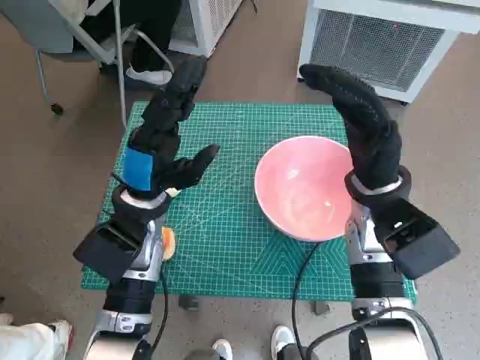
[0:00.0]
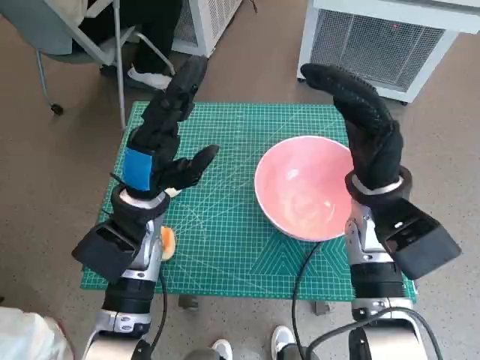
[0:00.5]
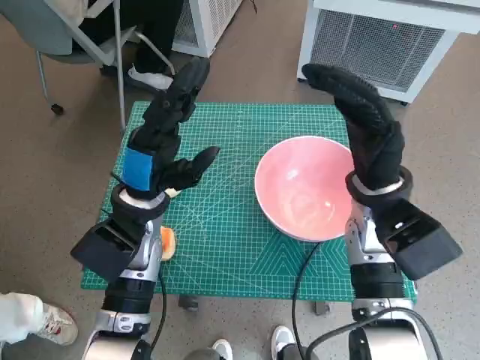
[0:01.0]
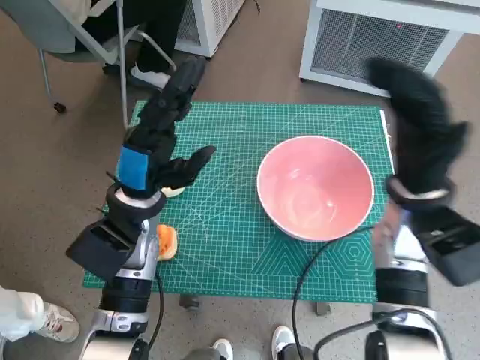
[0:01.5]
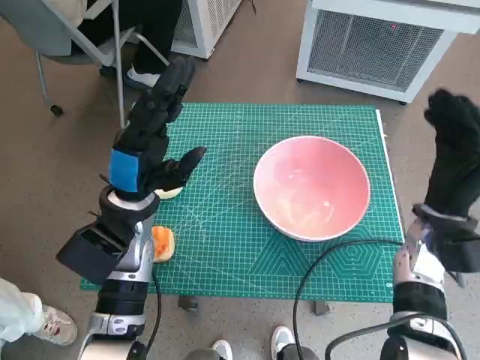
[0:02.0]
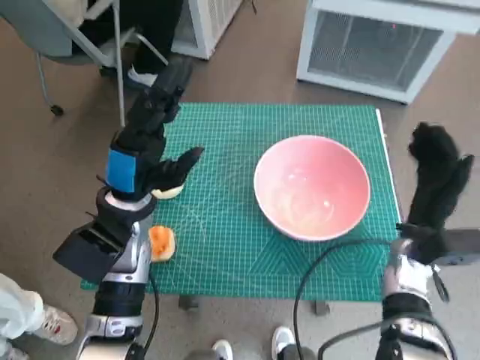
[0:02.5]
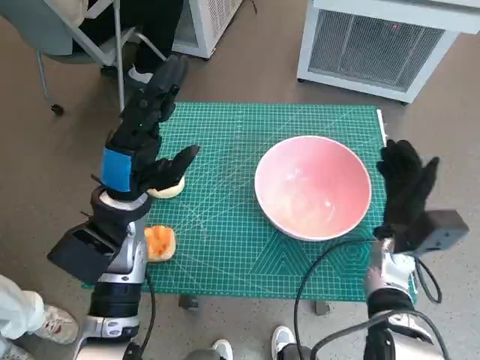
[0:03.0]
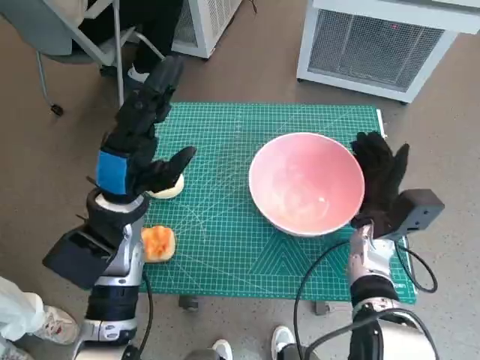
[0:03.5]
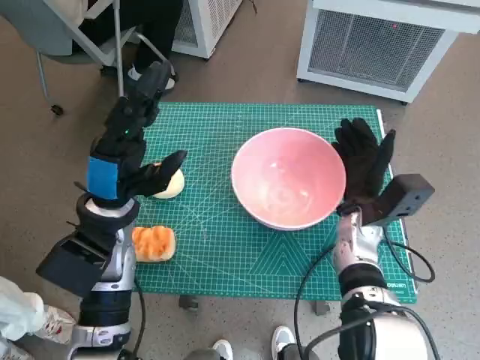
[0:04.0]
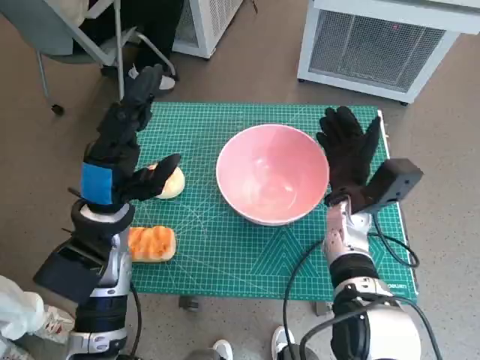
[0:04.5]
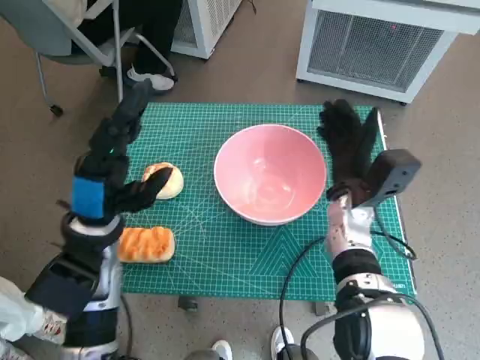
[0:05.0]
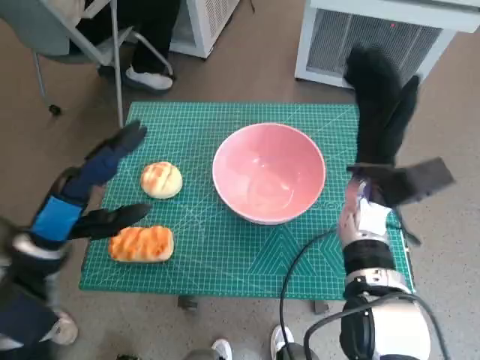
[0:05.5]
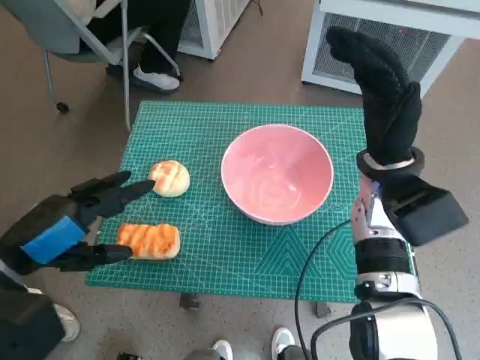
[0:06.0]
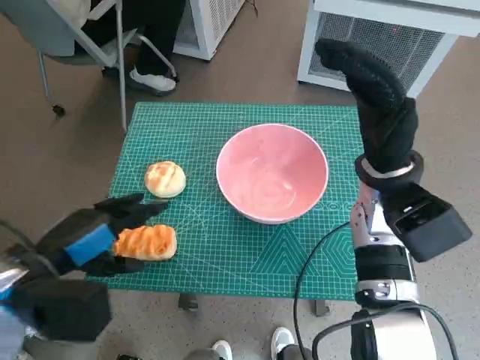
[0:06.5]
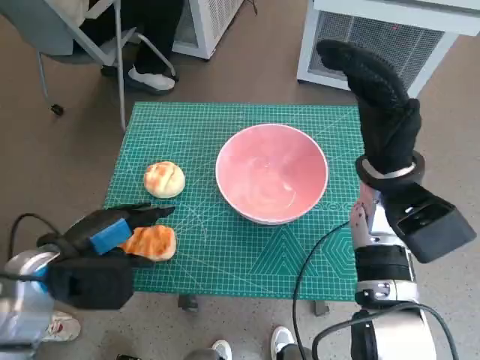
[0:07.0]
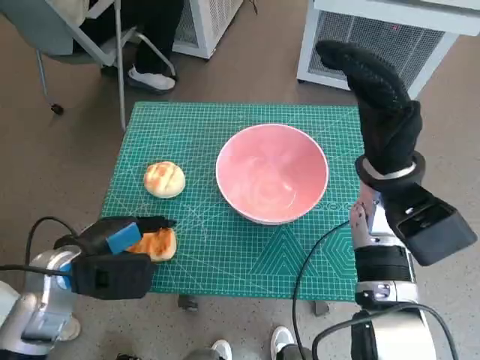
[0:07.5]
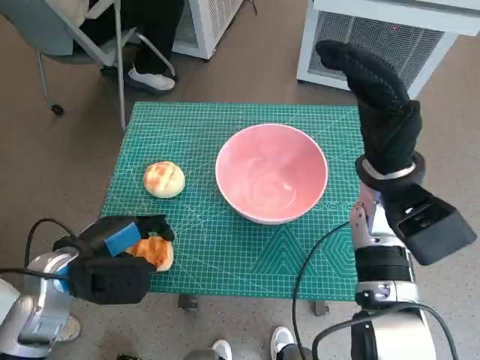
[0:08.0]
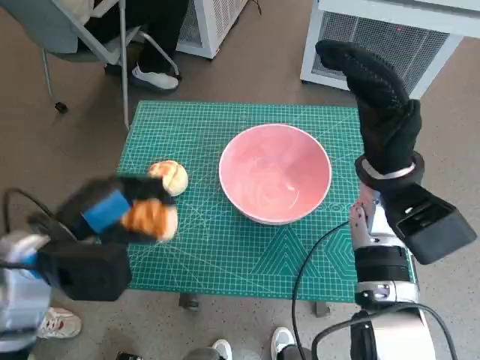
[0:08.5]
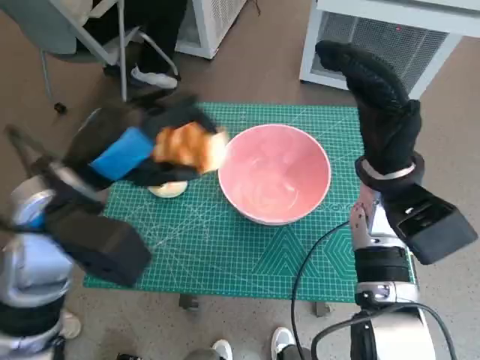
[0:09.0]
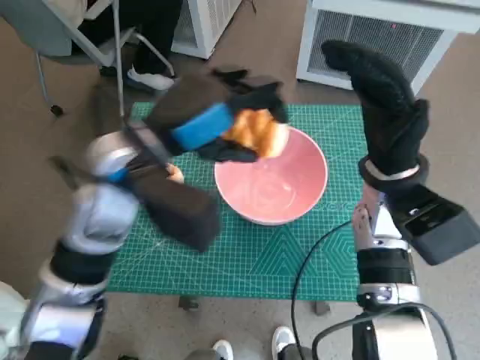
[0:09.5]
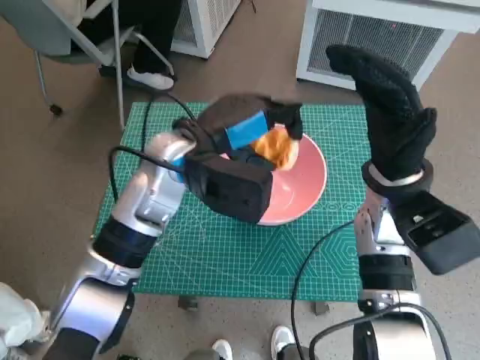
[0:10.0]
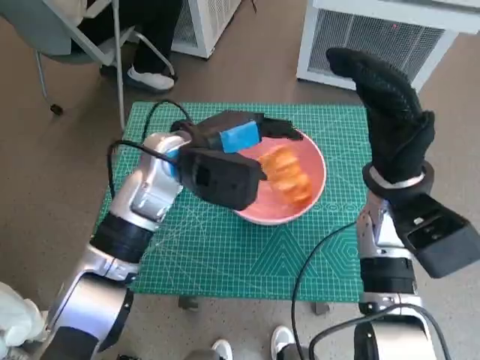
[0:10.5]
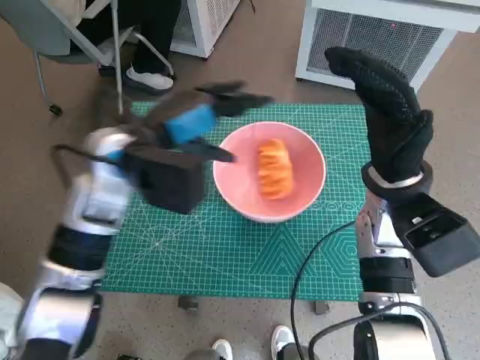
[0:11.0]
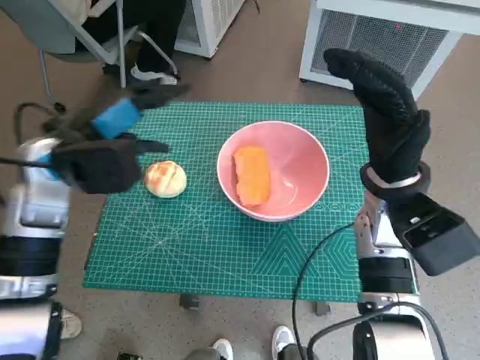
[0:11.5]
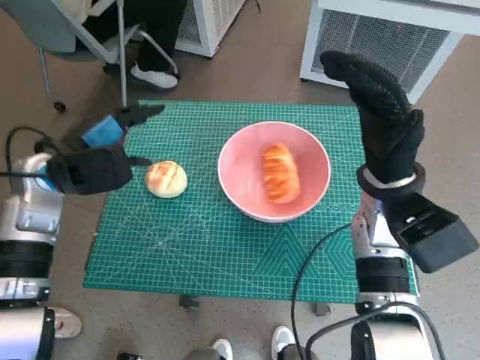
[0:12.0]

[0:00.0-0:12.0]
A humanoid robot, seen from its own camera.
Task of the whole recording: Push the bowl to the center of the table and put the bread into the bowl.
Step, 0:00.0 to 0:05.0: Move the pink bowl to the center of table with right hand.
Step, 0:05.5 to 0:07.5: Grasp the long bread with left hand.
Step, 0:08.0 to 0:10.5: Place the long bread in pink bowl with left hand.
0:02.0 to 0:04.0: The right hand is displaced to the left and downward by approximately 10 cm.
0:04.0 to 0:06.0: The left hand is displaced backward, to the left and upward by some 15 cm. The right hand shifts approximately 10 cm upward.
0:06.0 to 0:08.0: The left hand moves downward, about 10 cm.
0:08.0 to 0:10.0: The left hand goes some 20 cm to the right, forward and upward.
0:10.0 to 0:12.0: The left hand shifts about 15 cm to the left.

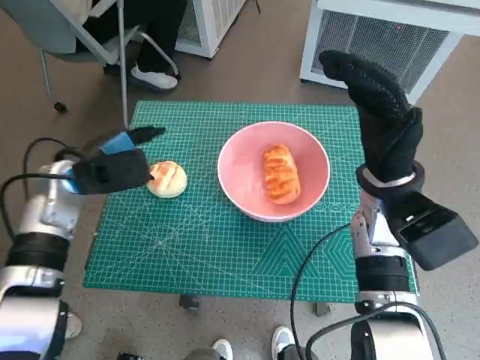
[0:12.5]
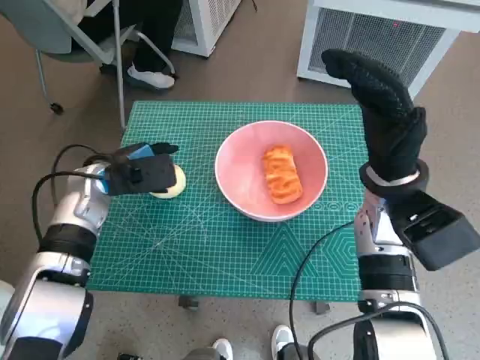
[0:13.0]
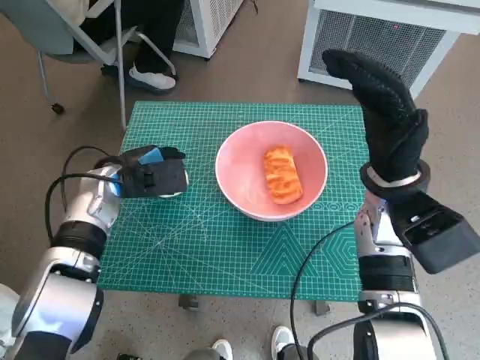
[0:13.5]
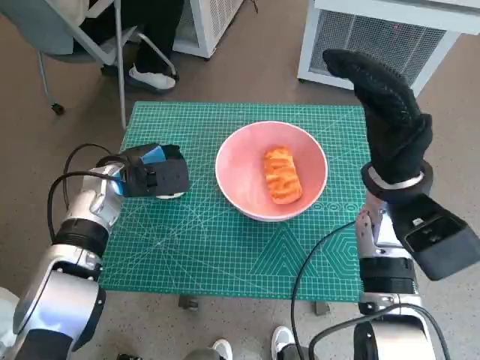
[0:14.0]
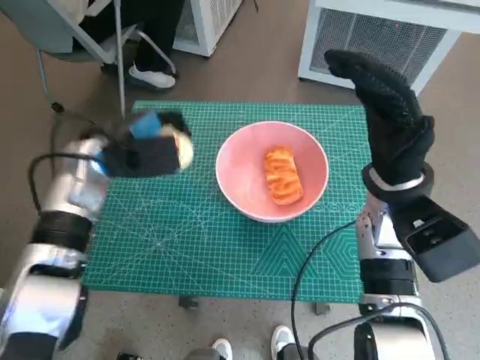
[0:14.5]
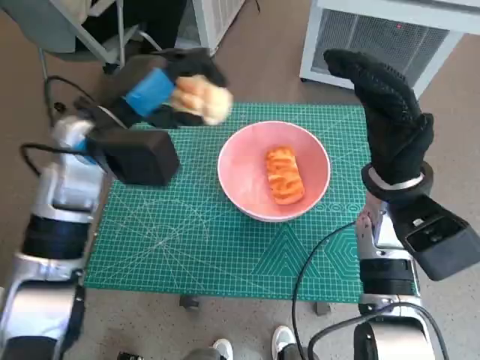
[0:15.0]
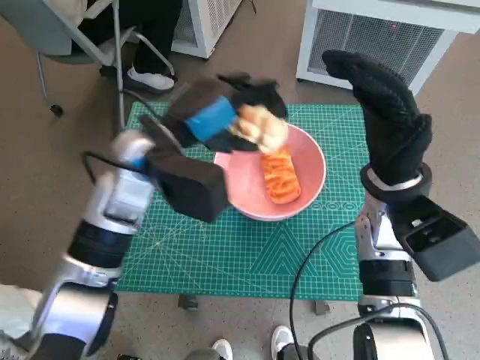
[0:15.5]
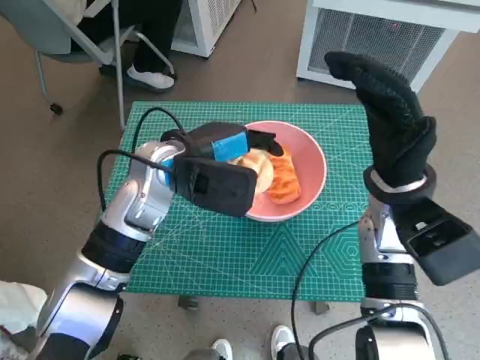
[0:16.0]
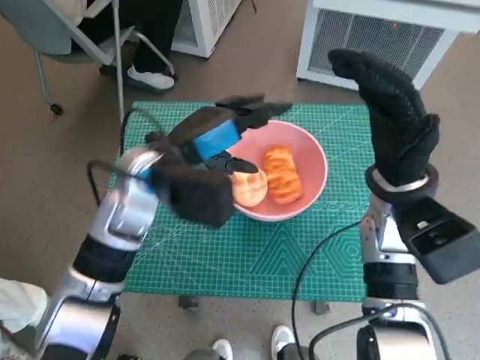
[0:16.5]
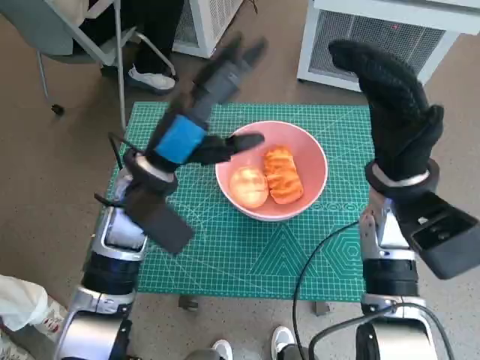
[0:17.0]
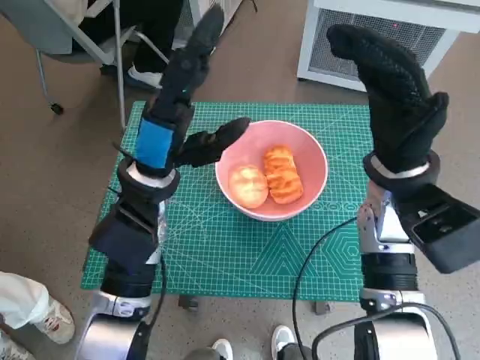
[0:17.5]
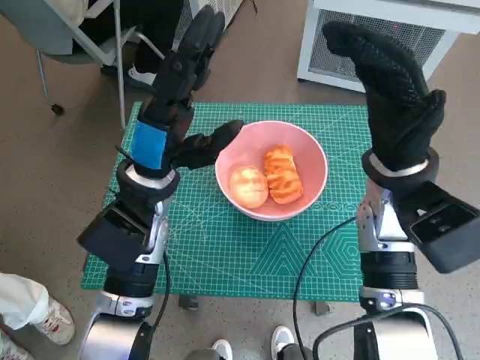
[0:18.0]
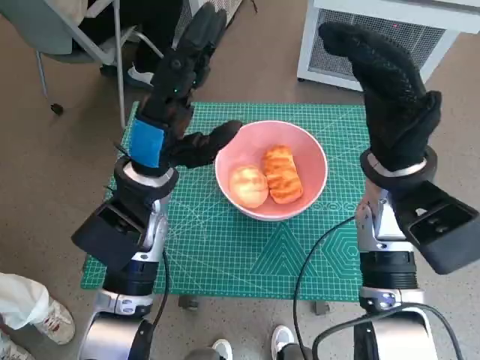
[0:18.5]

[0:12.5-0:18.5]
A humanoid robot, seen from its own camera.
Task of the whole recording: Push the bowl to the center of the table and put the bread into the bowl.
Step, 0:14.5 to 0:16.0: Place the round bread in pink bowl with left hand.
0:14.5 to 0:16.5: The left hand shifts roughly 10 cm to the right.

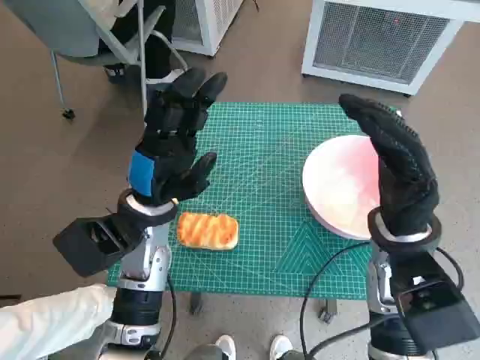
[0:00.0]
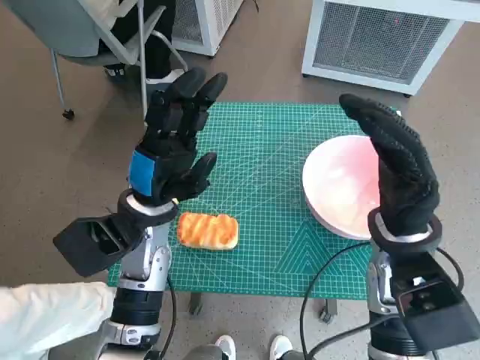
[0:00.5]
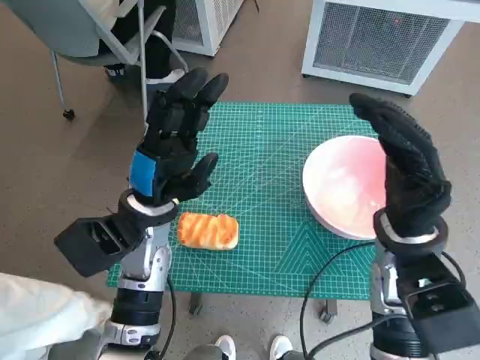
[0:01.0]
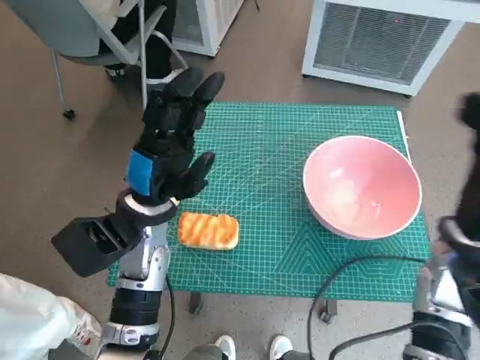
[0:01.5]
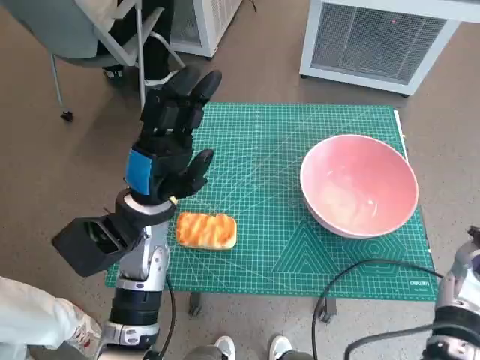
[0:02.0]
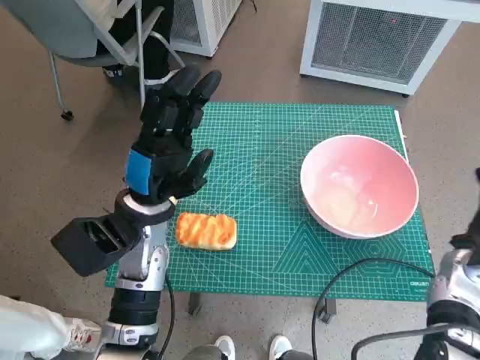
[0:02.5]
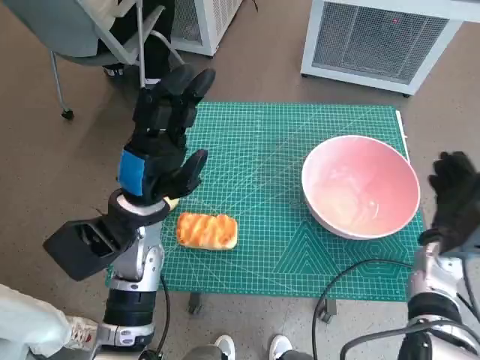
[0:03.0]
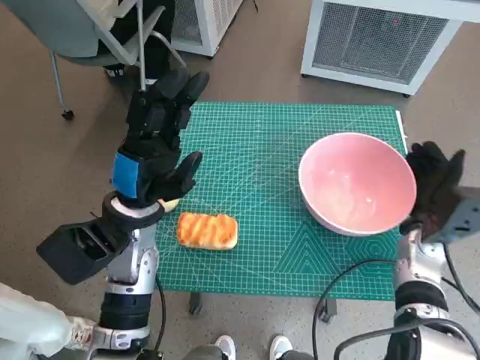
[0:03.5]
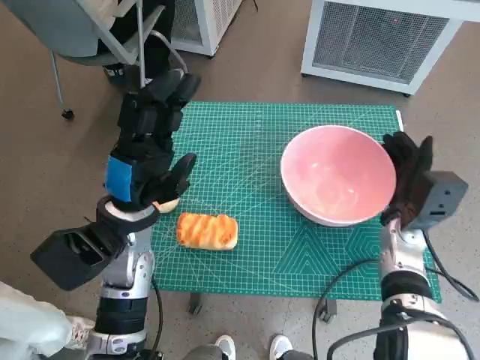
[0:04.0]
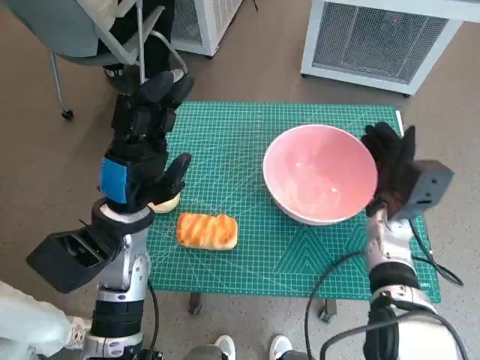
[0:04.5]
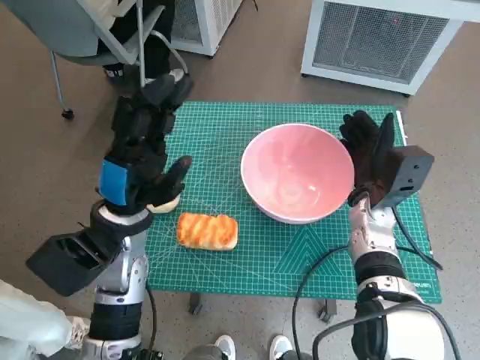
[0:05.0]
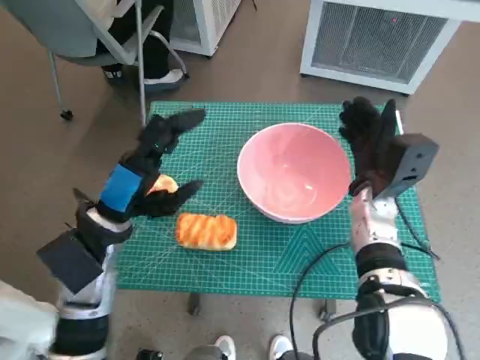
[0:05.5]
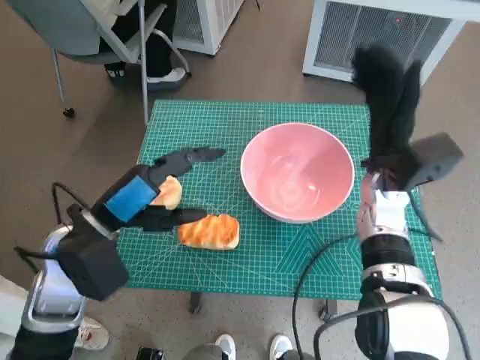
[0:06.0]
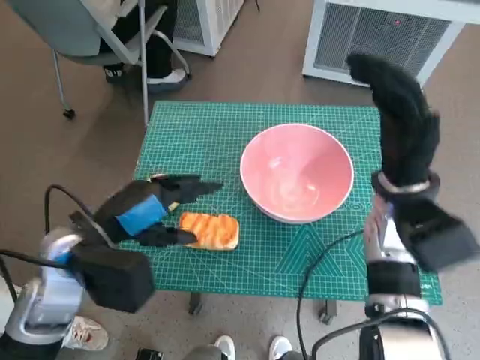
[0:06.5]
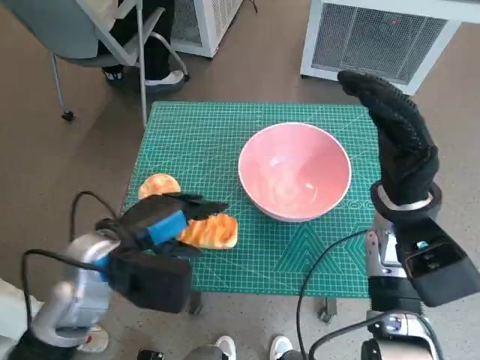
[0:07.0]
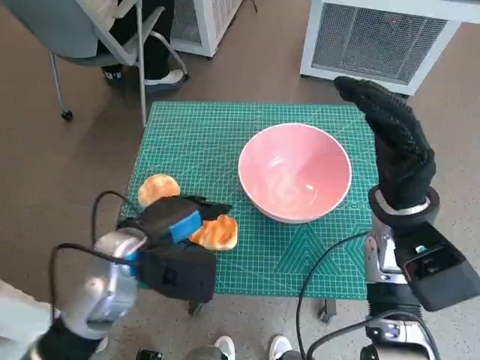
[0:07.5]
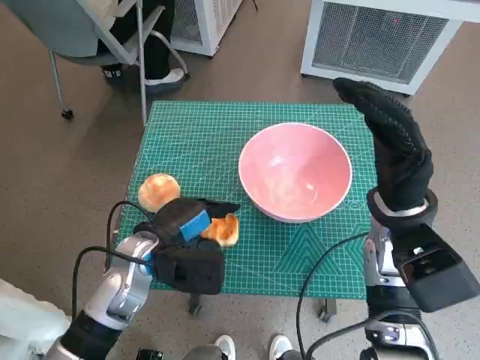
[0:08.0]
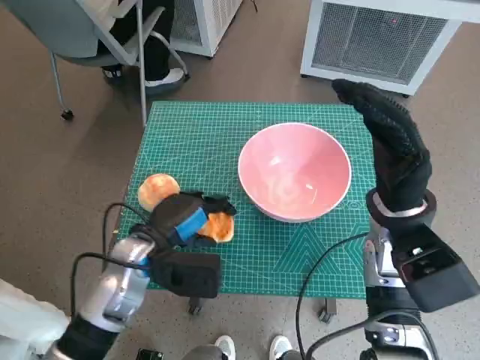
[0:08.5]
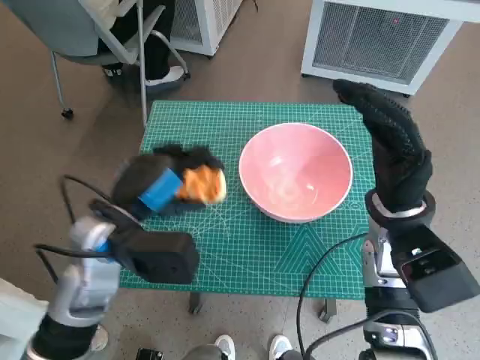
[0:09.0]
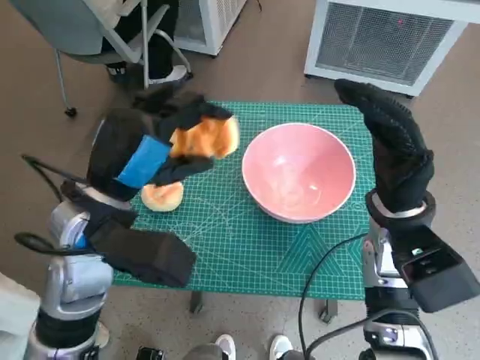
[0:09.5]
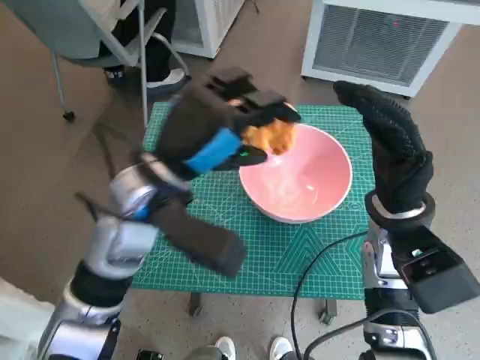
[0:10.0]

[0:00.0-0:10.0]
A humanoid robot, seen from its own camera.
Task of the whole recording: Push the bowl to the center of the table and put the bread into the bowl.
Step, 0:00.0 to 0:05.5: Move the pink bowl to the center of table with right hand.
Step, 0:06.0 to 0:08.0: Grasp the long bread with left hand.
0:02.0 to 0:04.0: The right hand goes some 10 cm to the left and forward.
0:04.0 to 0:06.0: The right hand travels upward and to the left by about 10 cm; the left hand changes place by about 5 cm.
0:06.0 to 0:08.0: The right hand is displaced backward by about 5 cm, while the left hand heads downward, covering approximately 5 cm.
0:08.0 to 0:10.0: The left hand goes about 15 cm upward.
